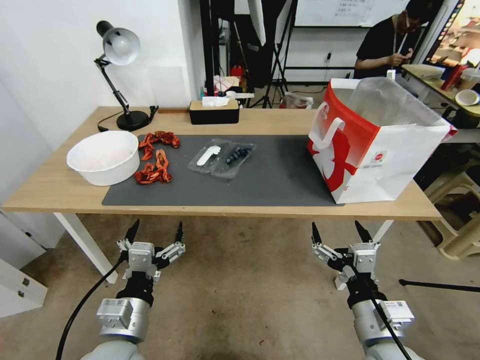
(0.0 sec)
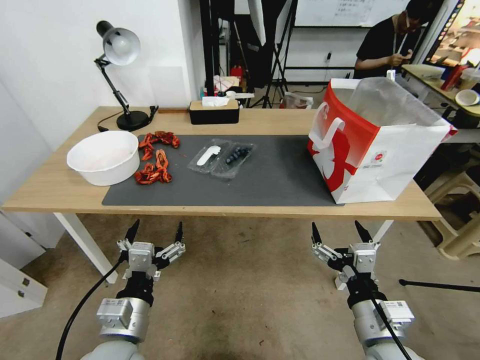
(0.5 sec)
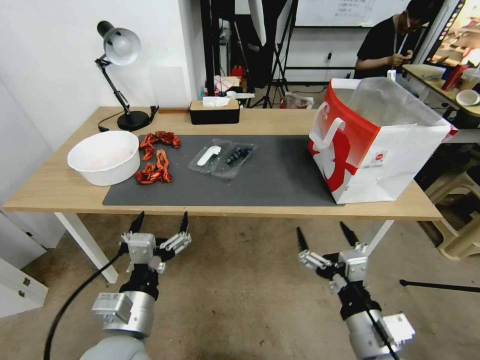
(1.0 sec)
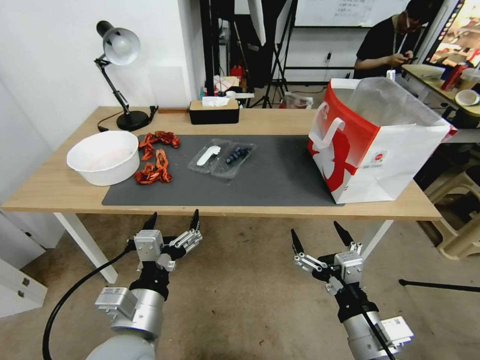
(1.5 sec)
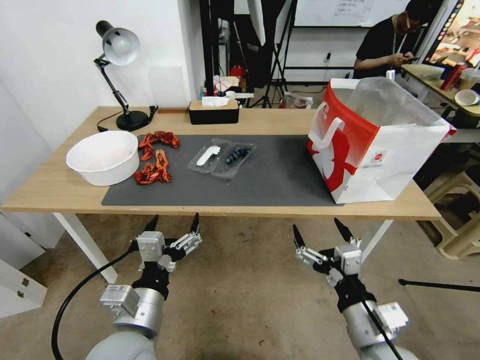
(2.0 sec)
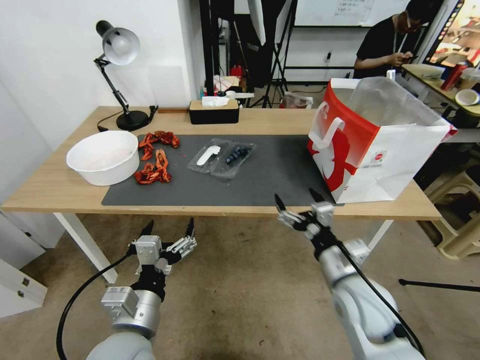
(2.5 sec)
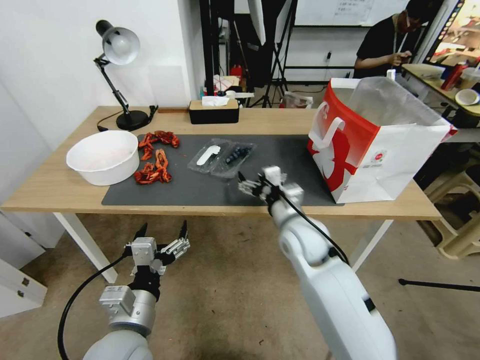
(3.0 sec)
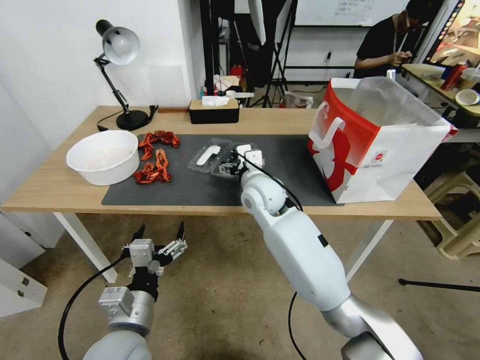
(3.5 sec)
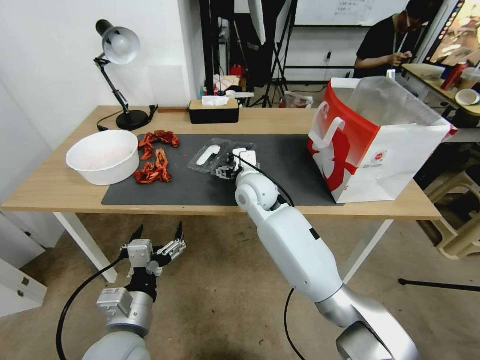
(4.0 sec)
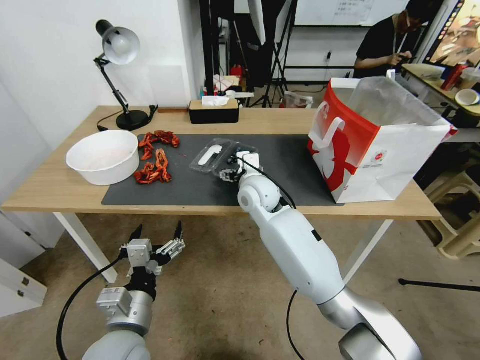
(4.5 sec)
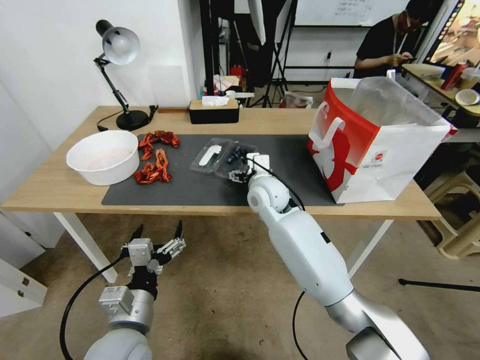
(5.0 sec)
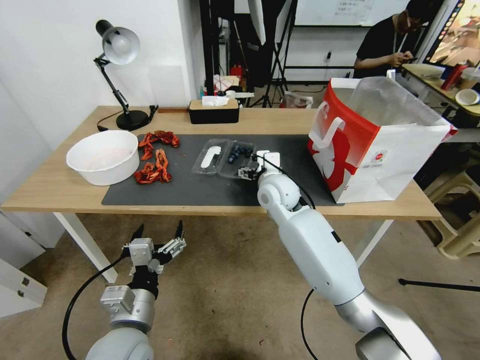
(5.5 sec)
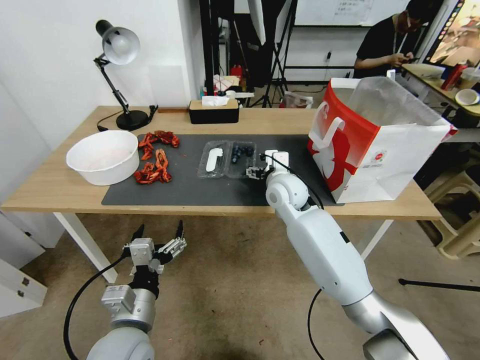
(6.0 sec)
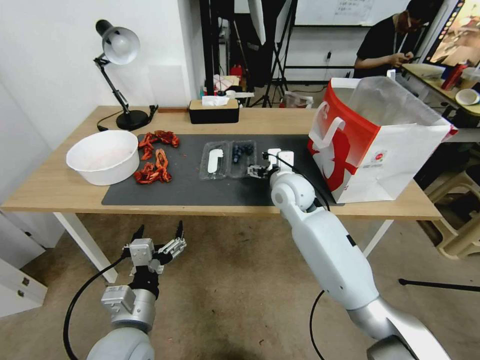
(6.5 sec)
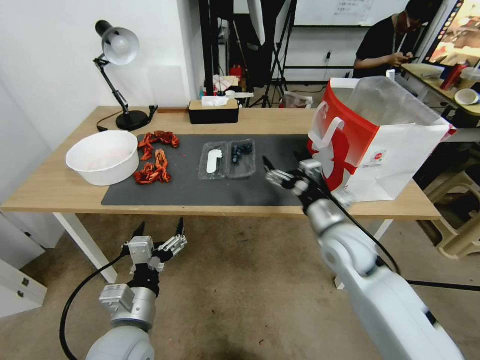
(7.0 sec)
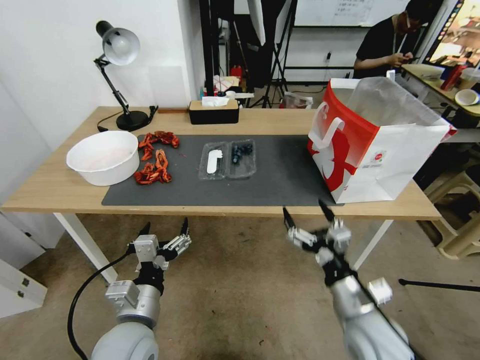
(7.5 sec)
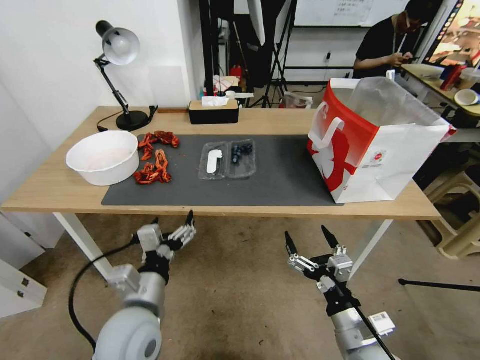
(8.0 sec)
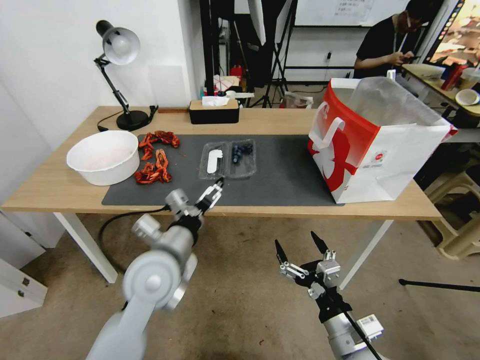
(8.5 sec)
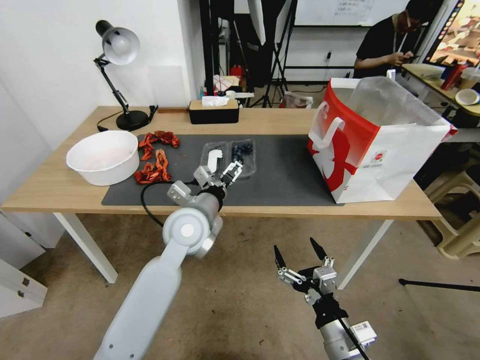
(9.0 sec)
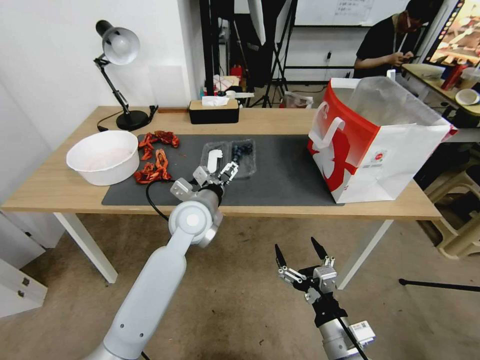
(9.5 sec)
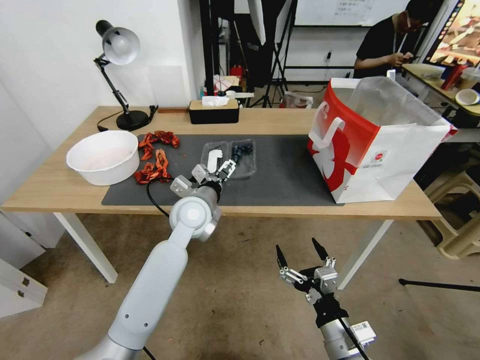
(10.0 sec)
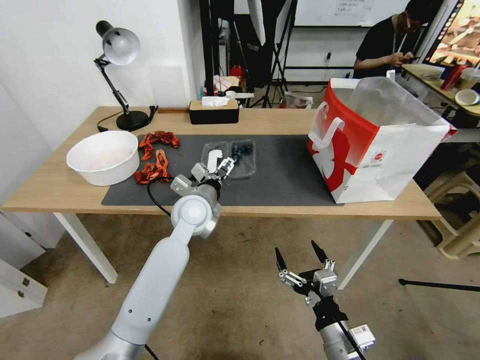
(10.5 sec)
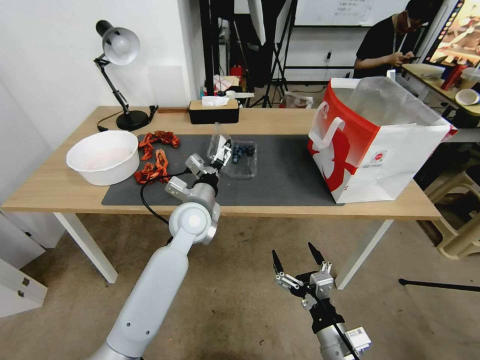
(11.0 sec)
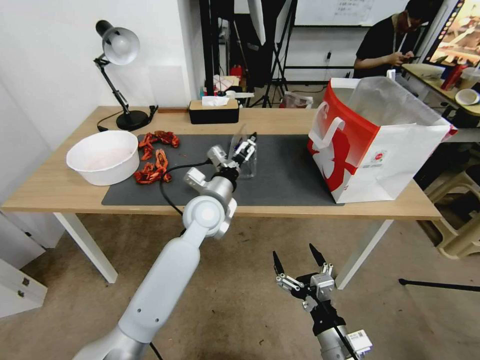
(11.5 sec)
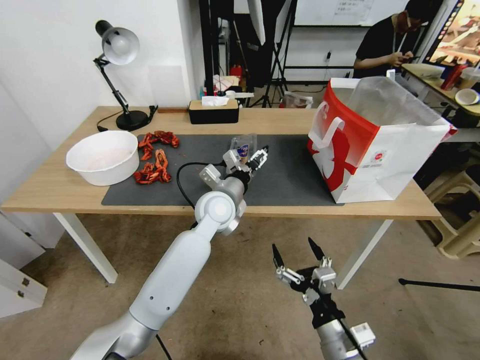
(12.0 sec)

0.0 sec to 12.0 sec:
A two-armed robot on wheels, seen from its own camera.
Task of the whole recording: Close the takeout container lid, then place the container into the takeout bag.
2.0 sec to 4.0 sec: The right gripper heads forward and to the left, covering roughly 40 cm.
4.0 sec to 6.0 sec: The right gripper moves to the right, approximately 5 cm.
6.0 sec to 8.0 sec: The right gripper travels backward by approximately 35 cm.
8.0 sec to 10.0 sec: The left gripper heads forward, covering roughly 25 cm.
10.0 sec to 12.0 sec: The left gripper heads to the right, covering about 5 cm.

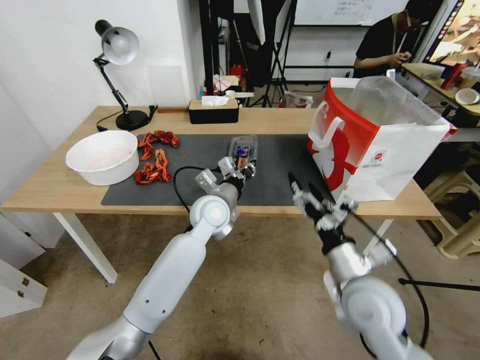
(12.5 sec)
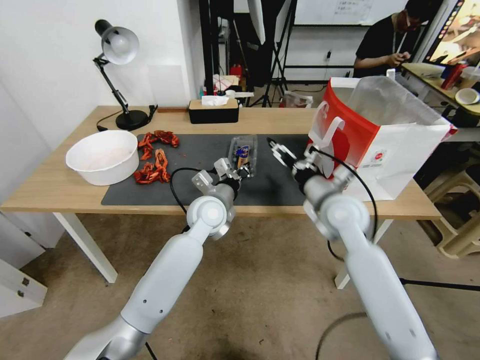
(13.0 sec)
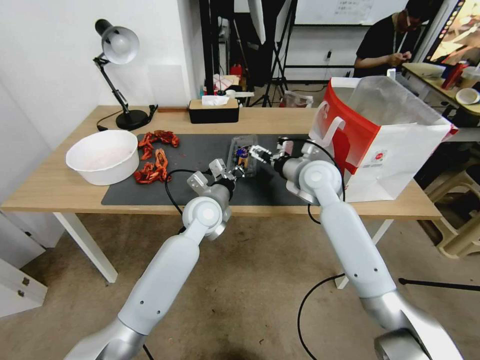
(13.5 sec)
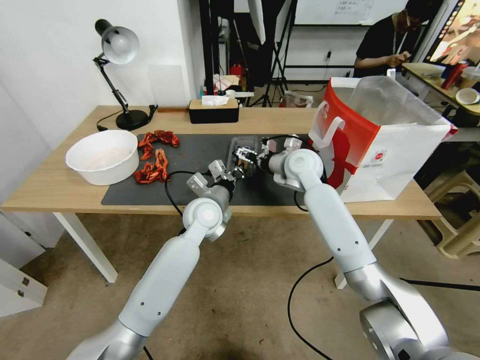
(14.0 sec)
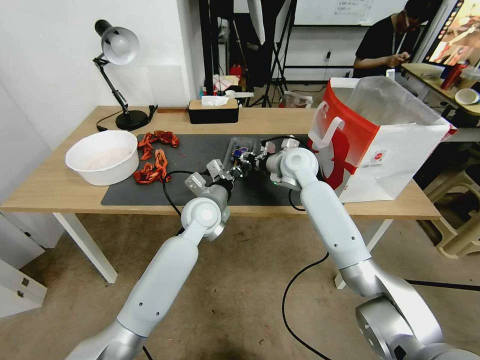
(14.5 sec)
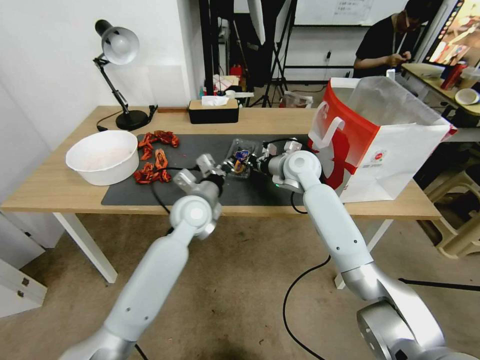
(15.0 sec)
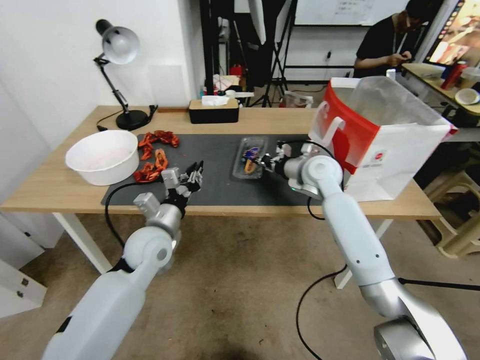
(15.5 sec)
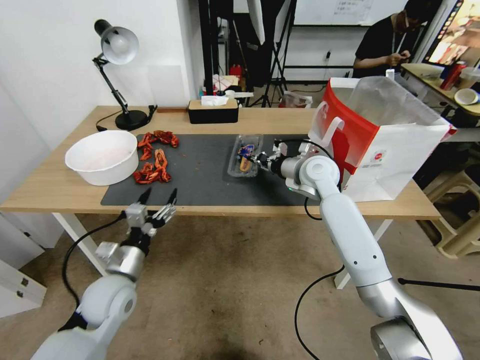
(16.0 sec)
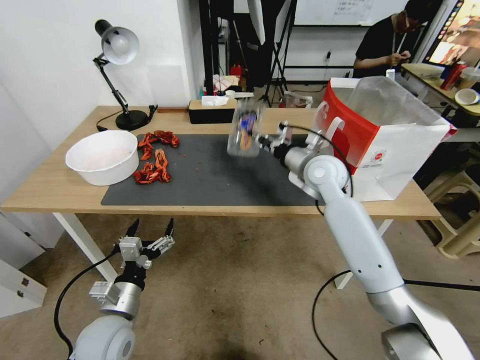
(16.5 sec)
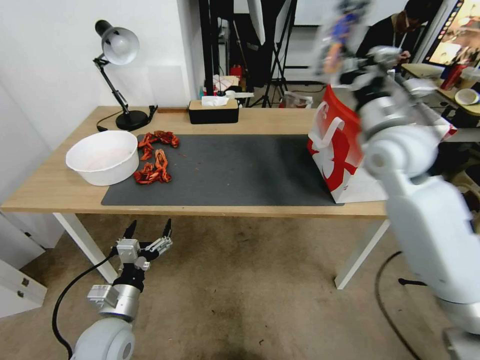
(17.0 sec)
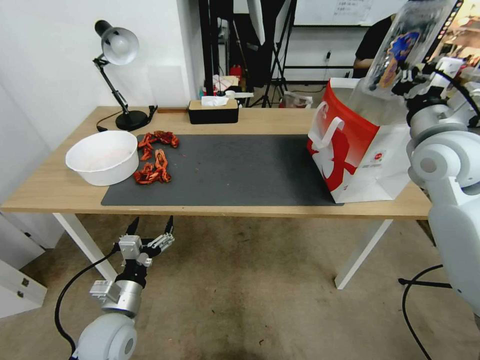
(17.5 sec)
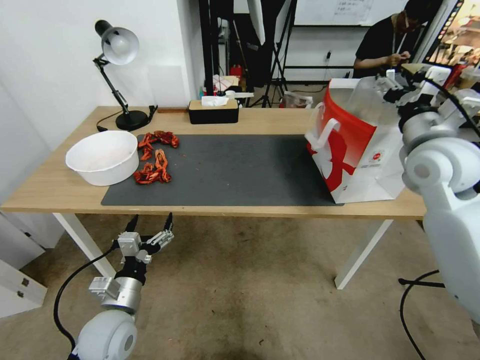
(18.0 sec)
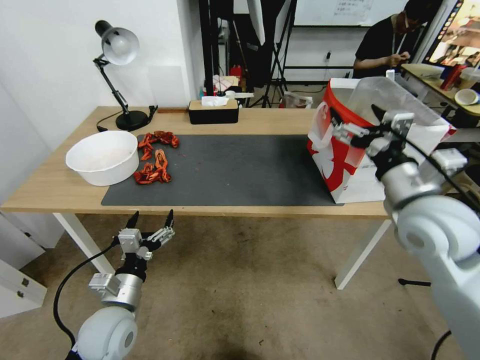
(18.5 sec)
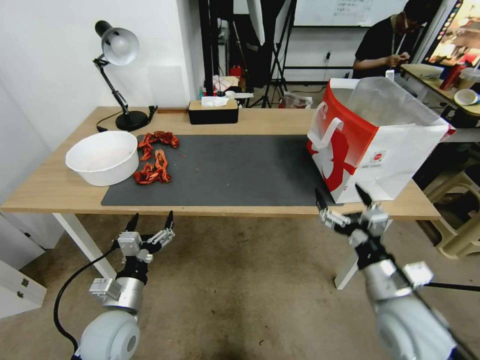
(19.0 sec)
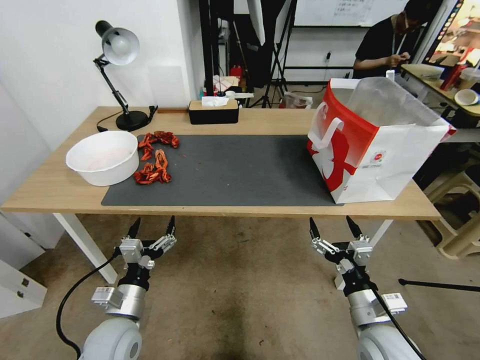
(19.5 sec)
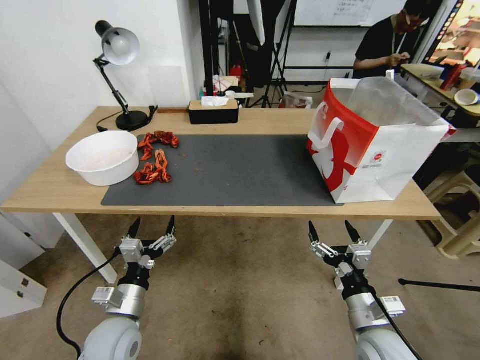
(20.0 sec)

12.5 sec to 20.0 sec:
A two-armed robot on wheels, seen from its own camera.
Task of the whole recording: Close the takeout container lid, then place the container into the takeout bag.
12.5 sec to 14.5 sec: The right gripper is displaced forward by some 30 cm, and closes up.
14.5 sec to 16.5 sec: The left gripper is displaced backward and to the left by roughly 30 cm, and opens up, while the right gripper goes approximately 5 cm backward and to the right, and closes its fingers.
16.5 sec to 18.0 sec: The right gripper travels to the right, upward and backward by approximately 20 cm, and opens its fingers.
18.0 sec to 20.0 sec: The right gripper is displaced downward and backward by about 35 cm.

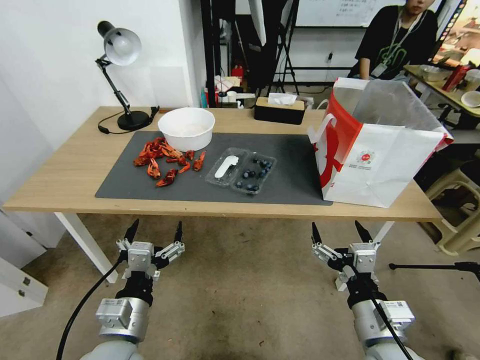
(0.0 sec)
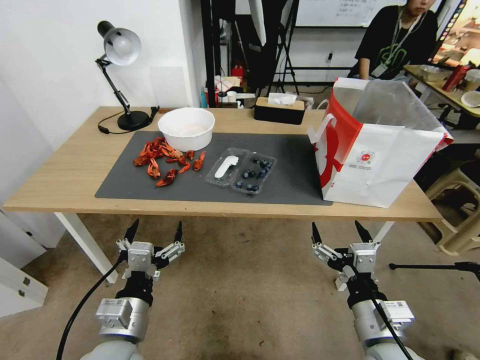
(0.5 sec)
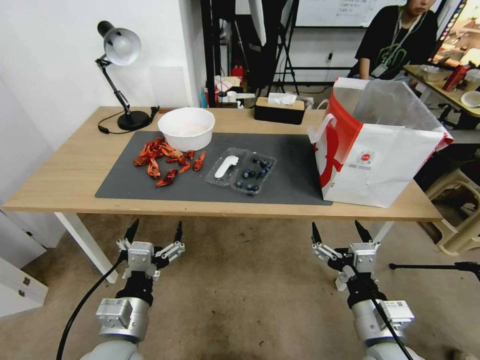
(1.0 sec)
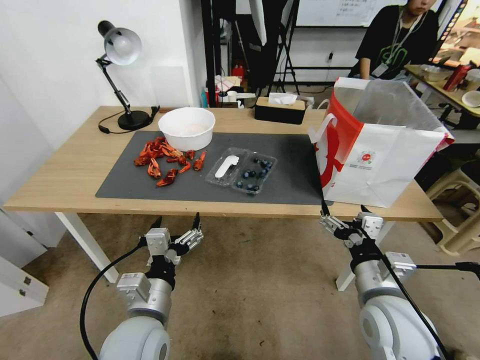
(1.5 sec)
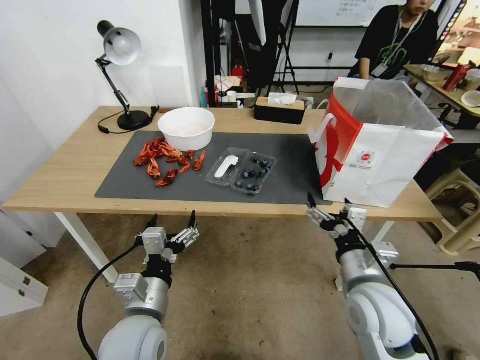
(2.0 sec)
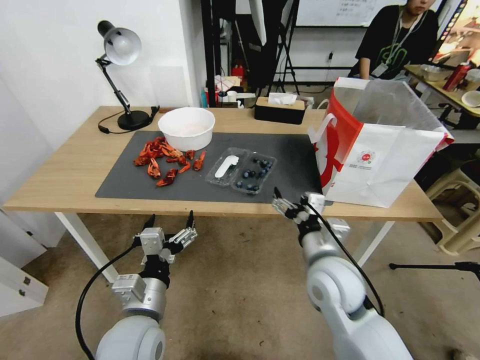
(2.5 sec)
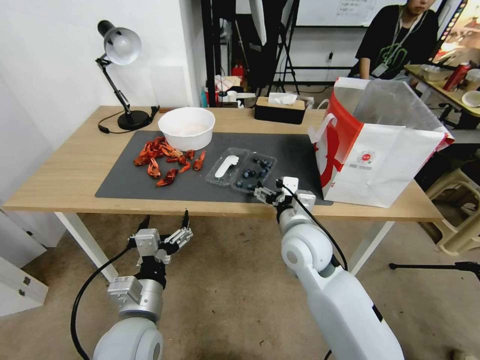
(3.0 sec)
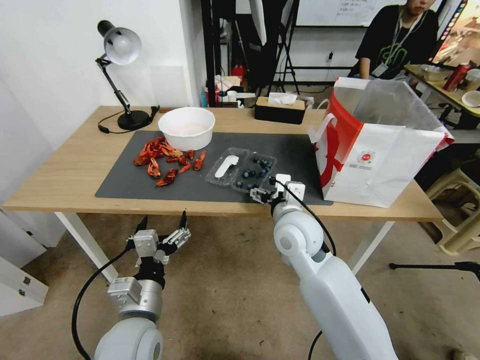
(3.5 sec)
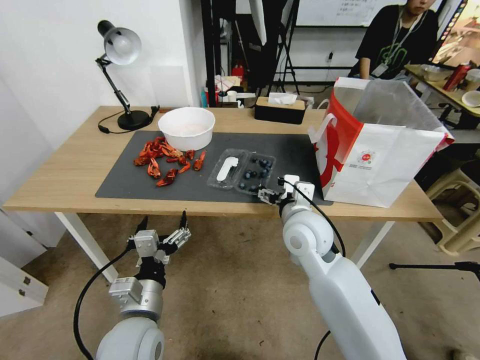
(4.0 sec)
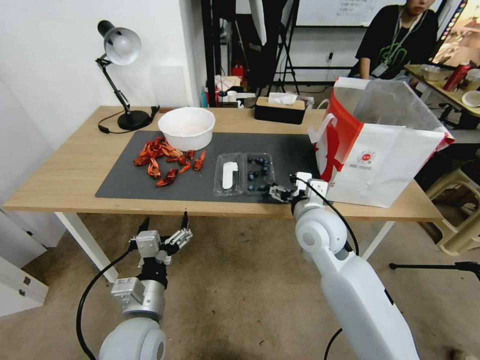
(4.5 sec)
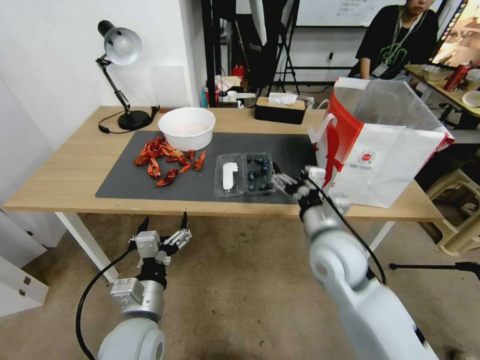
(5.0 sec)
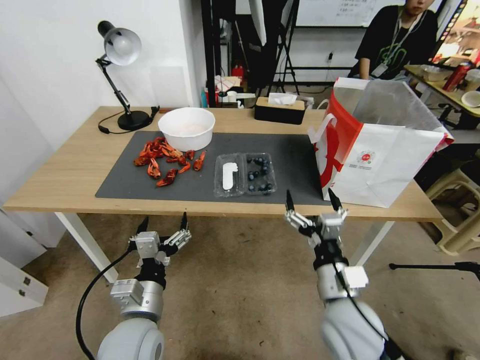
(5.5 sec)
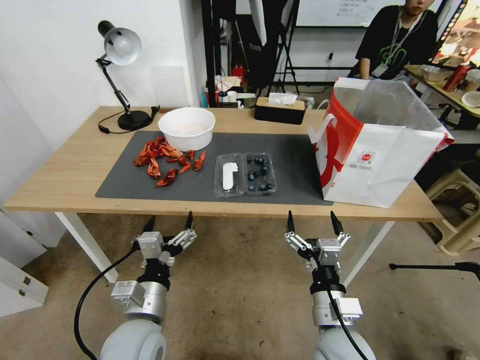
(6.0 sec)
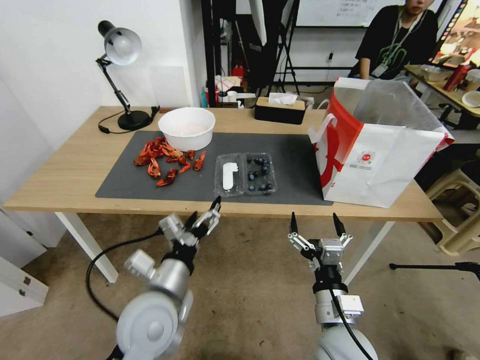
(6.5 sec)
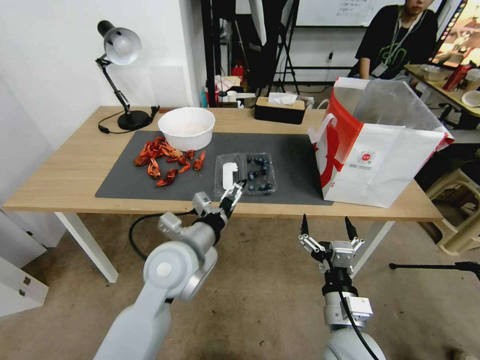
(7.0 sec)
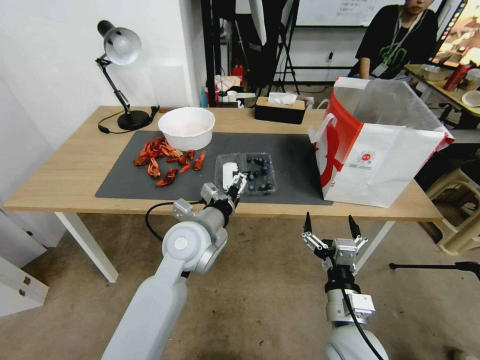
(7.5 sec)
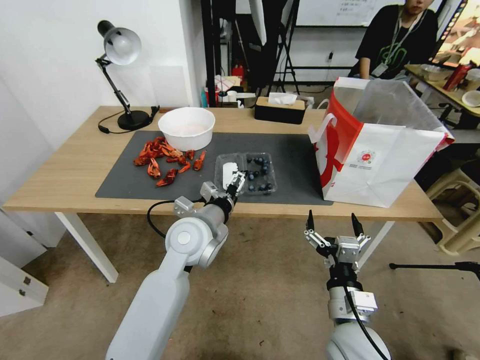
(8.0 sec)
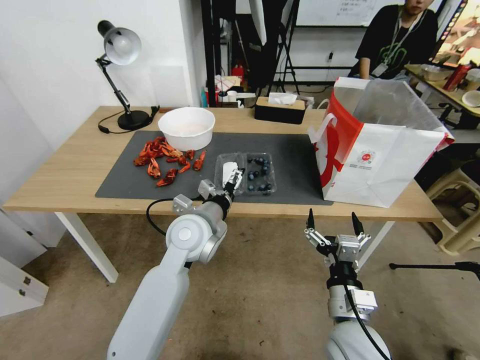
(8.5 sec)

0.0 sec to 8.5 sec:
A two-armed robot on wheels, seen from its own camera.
Task of the whole recording: Close the takeout container lid, then place the container into the takeout bag.
2.0 sec to 4.0 sec: The right gripper goes about 15 cm forward and to the left.
4.0 sec to 6.5 sec: The left gripper moves approximately 5 cm, while the right gripper shifts some 20 cm backward and downward.
6.5 sec to 8.5 sec: The left gripper is displaced forward by about 15 cm.
